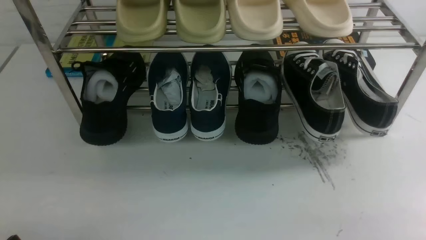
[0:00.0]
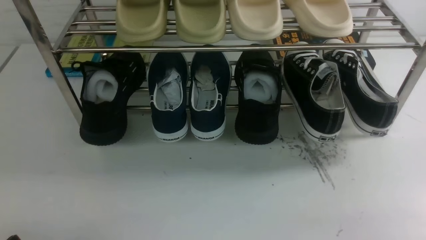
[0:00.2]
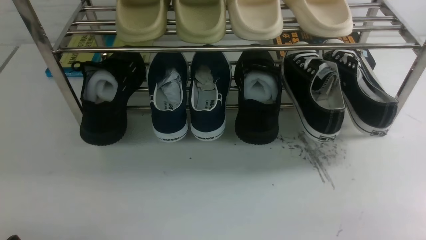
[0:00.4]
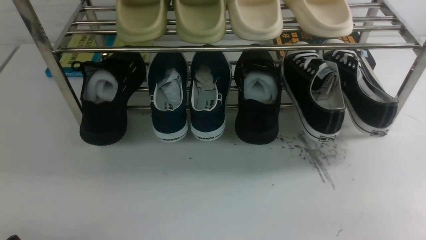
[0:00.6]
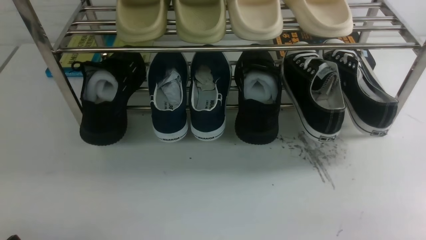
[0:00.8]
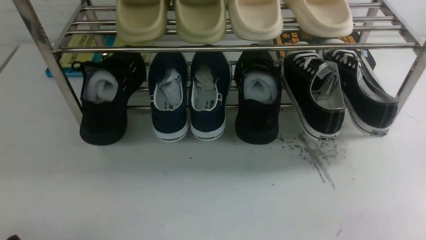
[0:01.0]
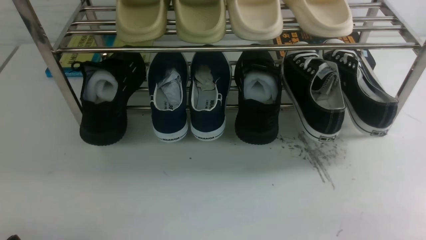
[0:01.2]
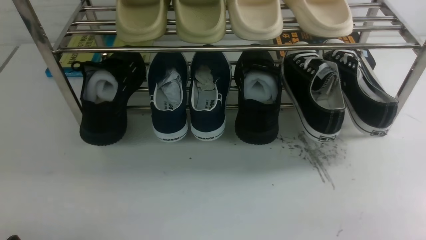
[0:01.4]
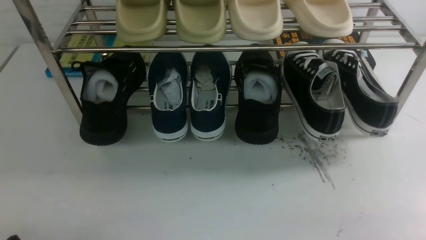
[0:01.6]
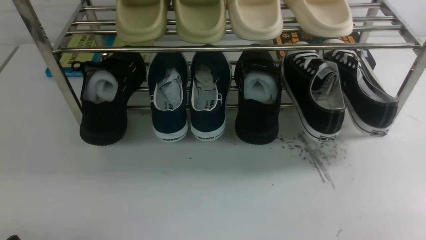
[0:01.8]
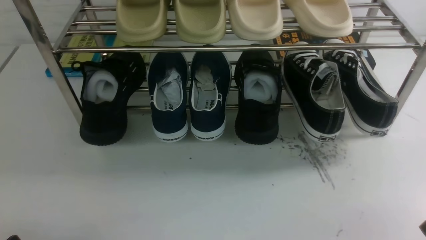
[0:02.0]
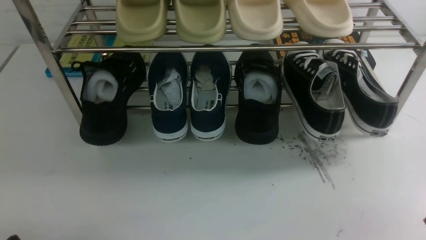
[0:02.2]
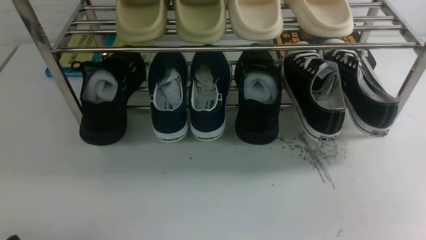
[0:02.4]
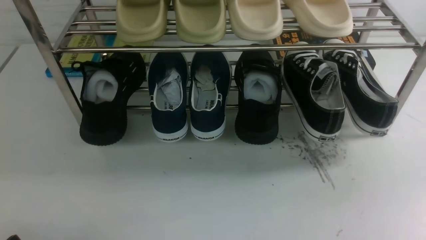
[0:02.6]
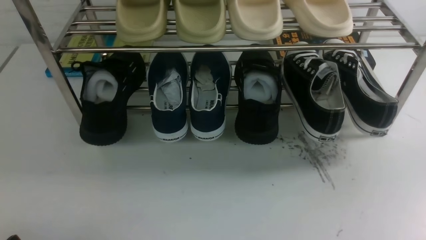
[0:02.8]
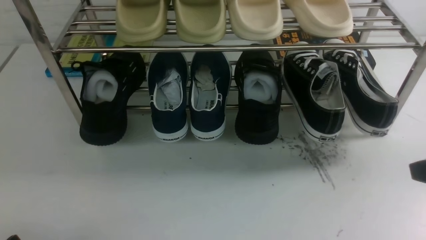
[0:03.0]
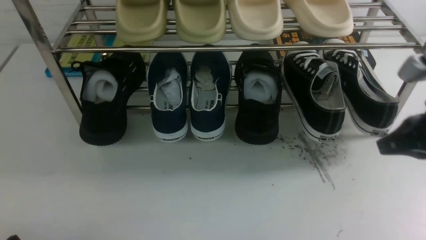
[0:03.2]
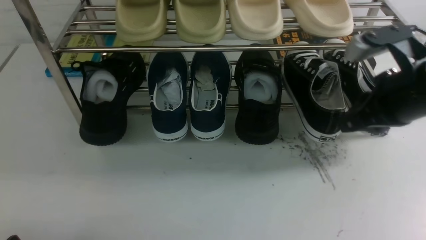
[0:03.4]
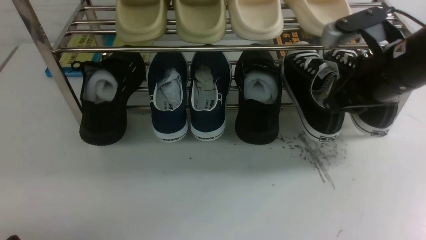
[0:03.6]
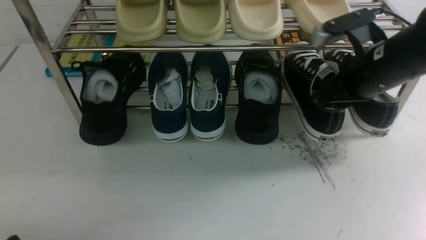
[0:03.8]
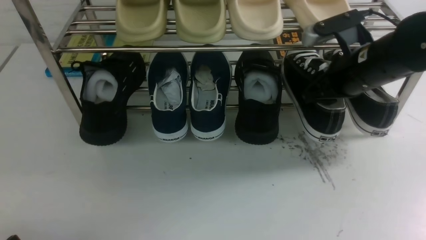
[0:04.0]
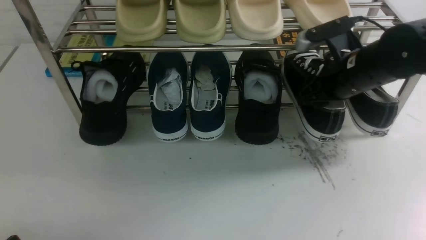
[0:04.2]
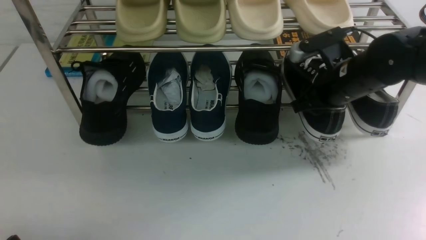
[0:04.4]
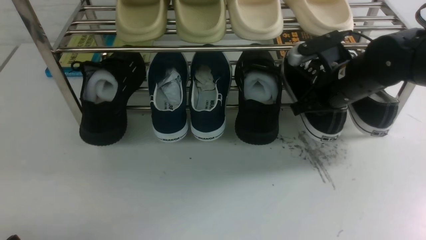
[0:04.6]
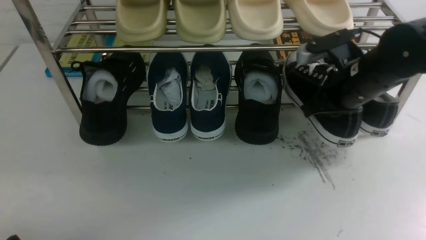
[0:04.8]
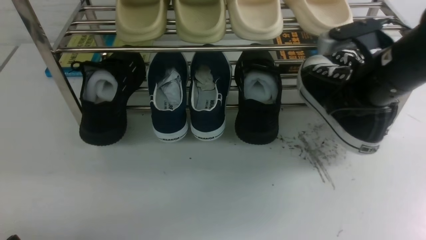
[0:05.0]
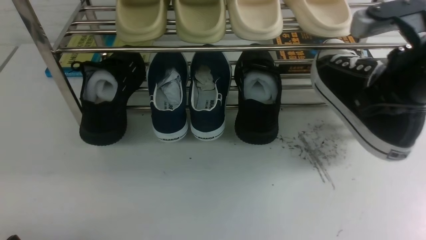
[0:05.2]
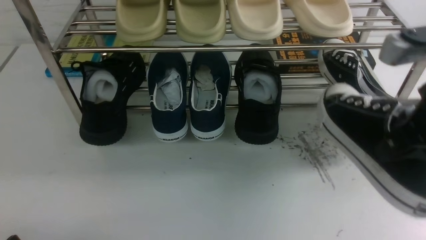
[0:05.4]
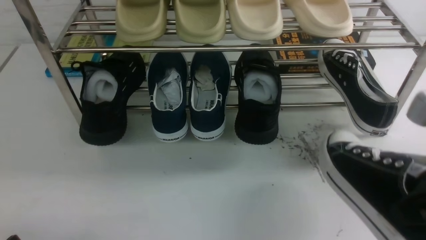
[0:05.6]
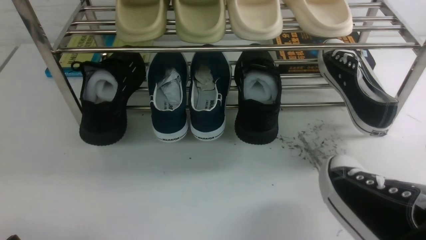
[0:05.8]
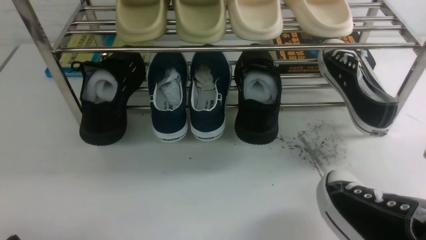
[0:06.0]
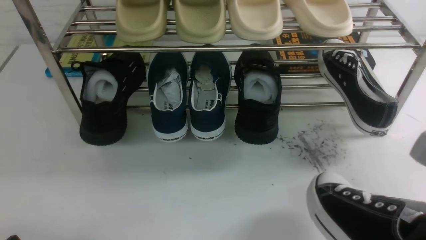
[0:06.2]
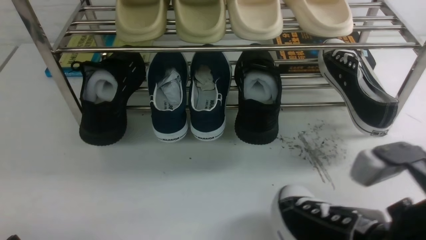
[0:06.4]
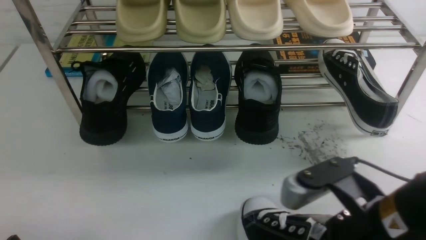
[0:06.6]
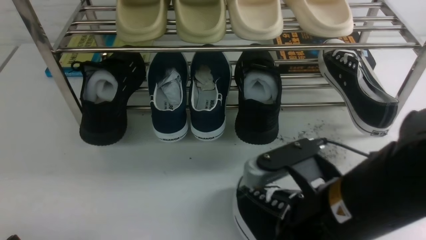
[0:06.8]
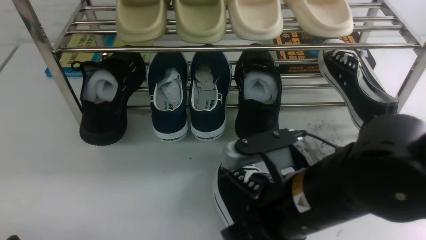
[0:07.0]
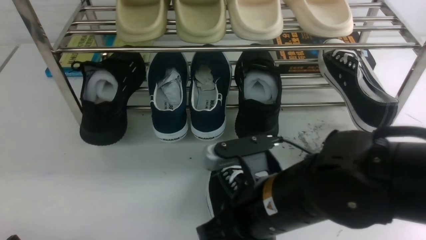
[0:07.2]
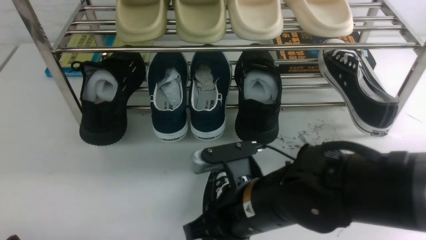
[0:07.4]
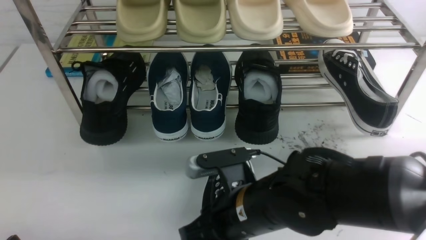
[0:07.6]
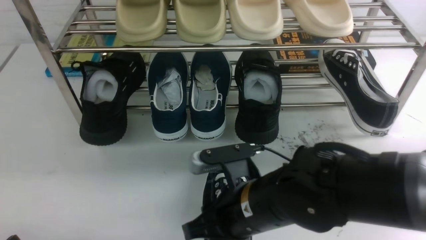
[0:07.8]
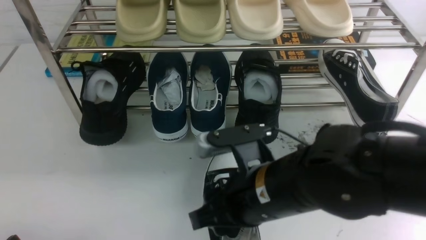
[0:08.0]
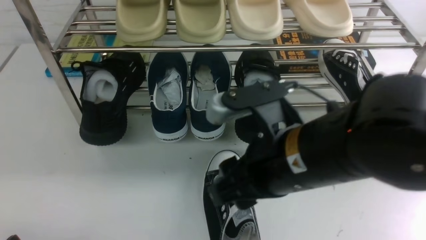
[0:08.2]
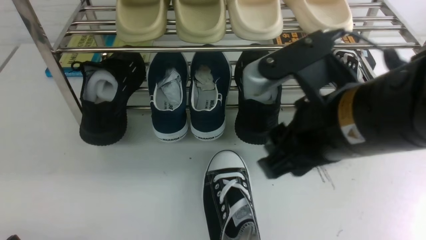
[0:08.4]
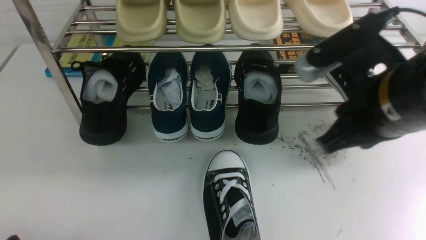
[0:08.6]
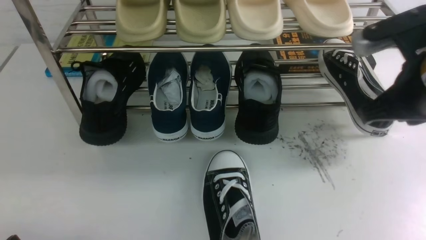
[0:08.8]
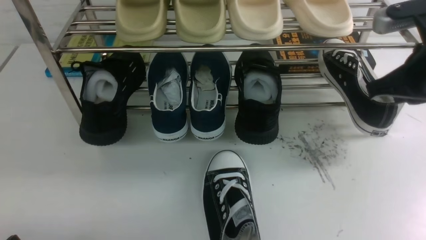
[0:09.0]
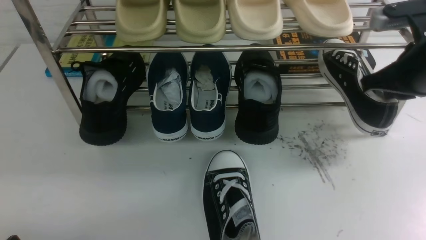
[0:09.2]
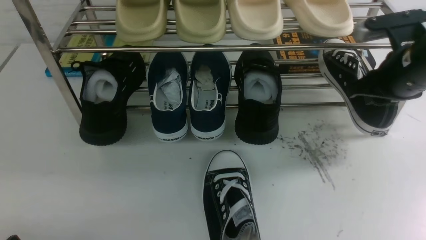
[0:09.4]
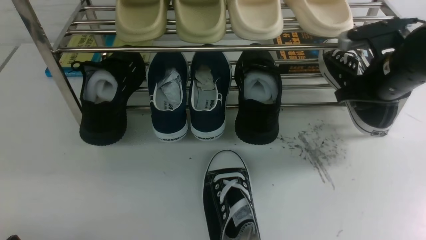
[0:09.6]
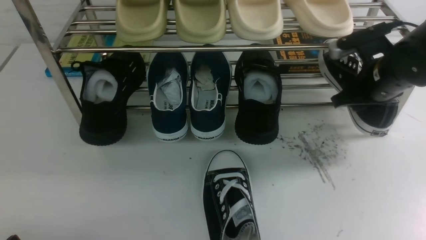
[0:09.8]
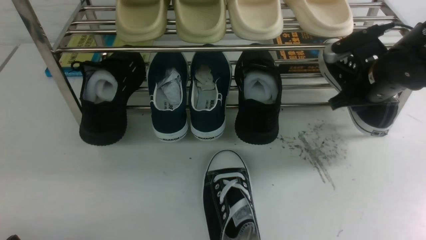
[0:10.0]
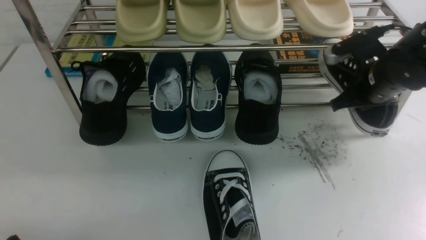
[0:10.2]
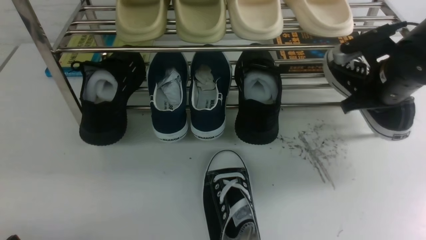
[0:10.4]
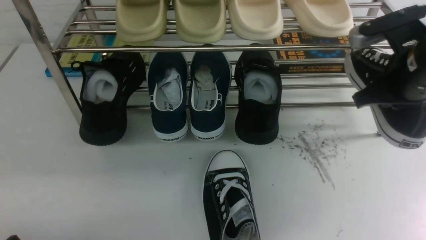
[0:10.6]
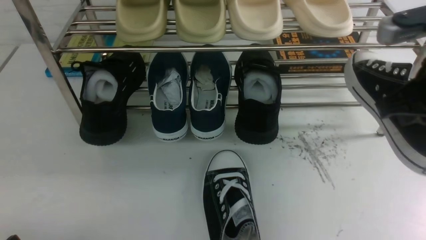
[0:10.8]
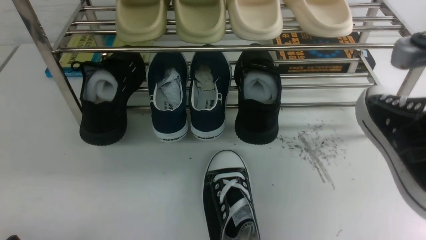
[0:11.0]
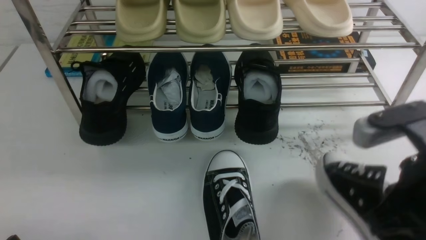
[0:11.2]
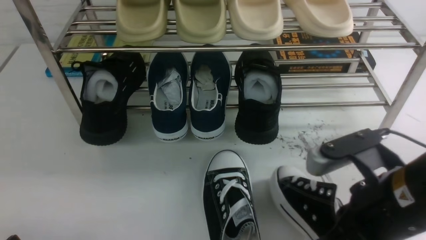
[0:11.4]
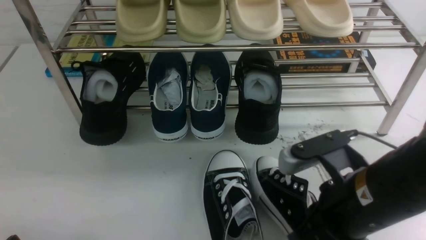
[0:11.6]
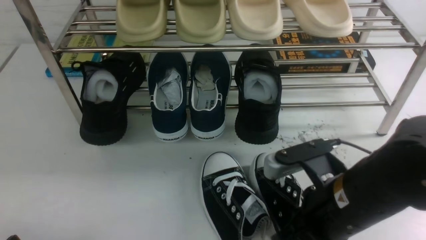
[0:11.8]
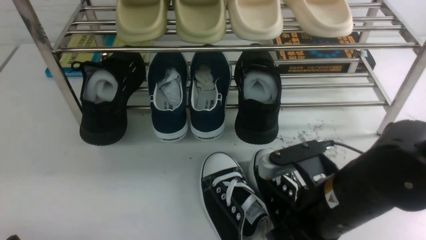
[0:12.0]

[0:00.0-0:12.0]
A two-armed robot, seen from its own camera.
Step, 0:00.0 to 0:05.0: use the right arm to clamp a shoe on the right side of the shoe rack.
Step, 0:05.2 to 0:08.2: use the right arm to take out the clamped shoe from the shoe rack and put it down.
Step, 0:08.4 to 0:10.6: use the right arm to clamp a shoe on the right side of the shoe rack.
0:03.0 to 0:04.4: The right gripper moves forward and to the left, approximately 20 cm, and opens.
0:04.4 to 0:06.0: The right gripper is displaced backward by approximately 25 cm, and closes.
0:06.0 to 0:07.6: The right gripper shifts roughly 25 cm to the left and downward, and opens up.
0:07.6 to 0:09.0: The right gripper goes roughly 25 cm to the right, upward and forward, and closes its fingers.
0:09.0 to 0:10.4: The right gripper is displaced forward and downward by approximately 10 cm, and opens, then closes again.
0:10.4 to 0:12.0: The right gripper moves backward and to the left, roughly 20 cm.

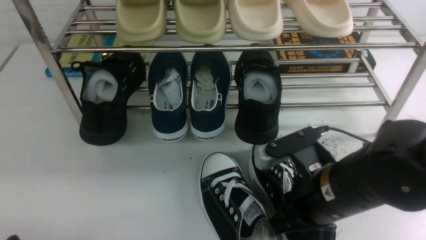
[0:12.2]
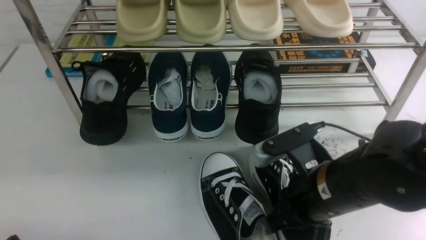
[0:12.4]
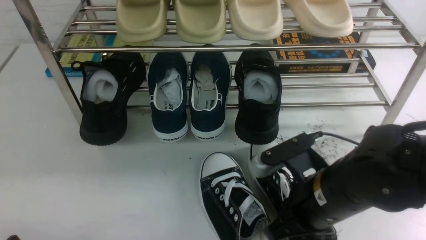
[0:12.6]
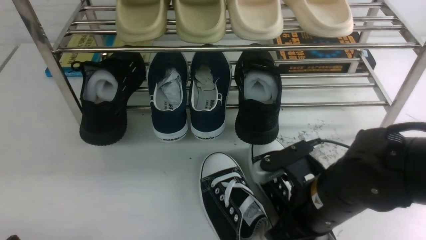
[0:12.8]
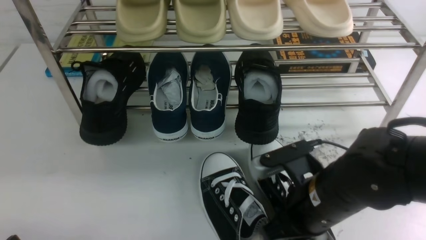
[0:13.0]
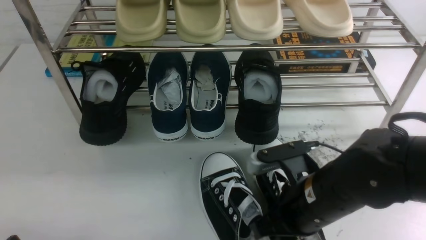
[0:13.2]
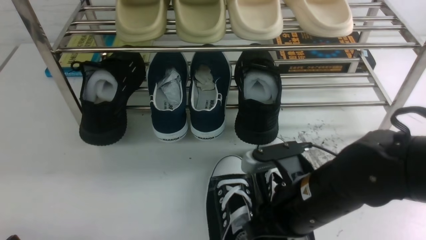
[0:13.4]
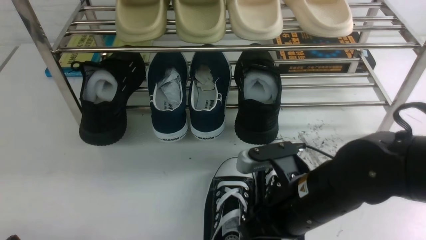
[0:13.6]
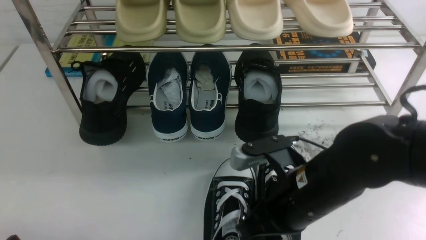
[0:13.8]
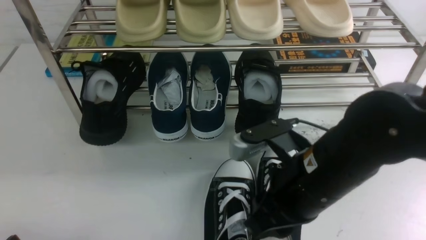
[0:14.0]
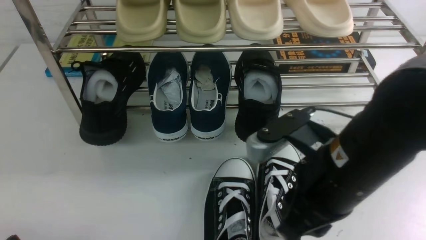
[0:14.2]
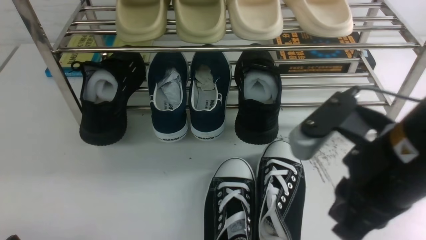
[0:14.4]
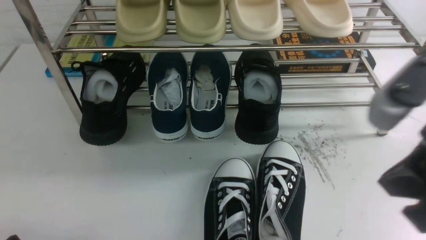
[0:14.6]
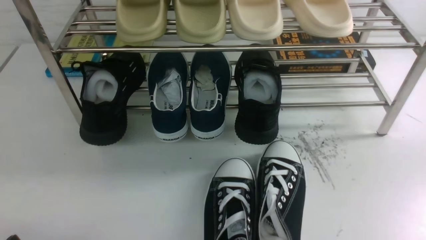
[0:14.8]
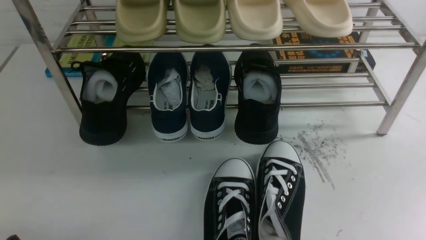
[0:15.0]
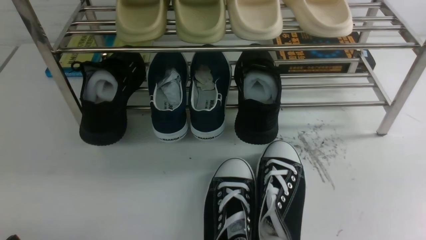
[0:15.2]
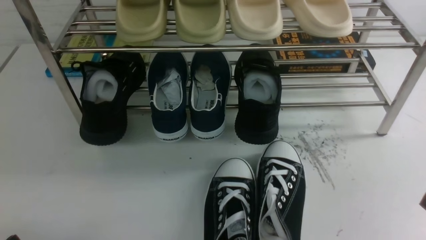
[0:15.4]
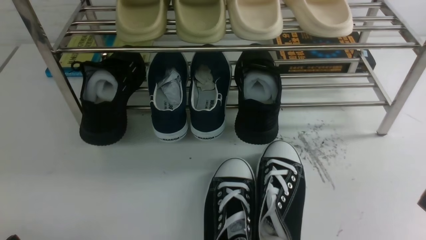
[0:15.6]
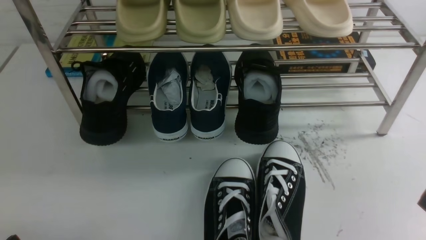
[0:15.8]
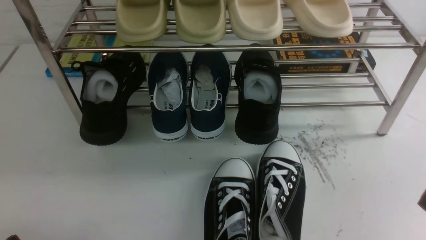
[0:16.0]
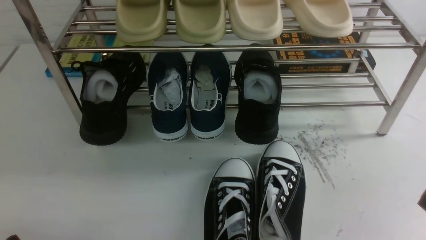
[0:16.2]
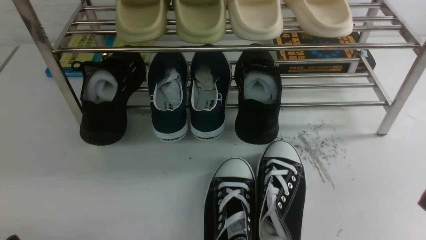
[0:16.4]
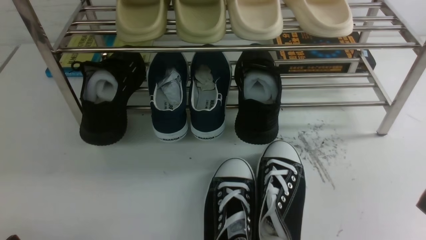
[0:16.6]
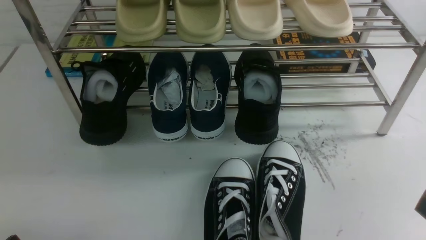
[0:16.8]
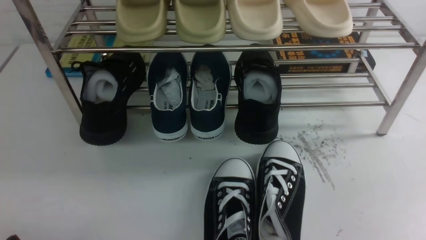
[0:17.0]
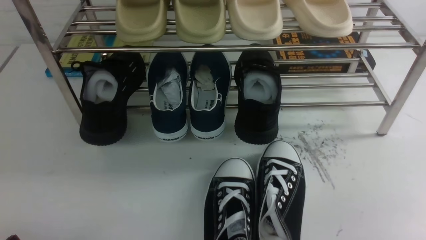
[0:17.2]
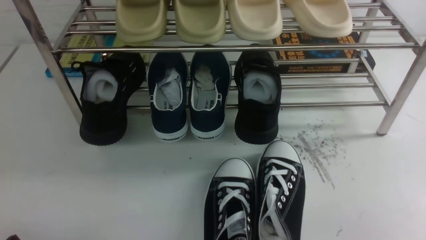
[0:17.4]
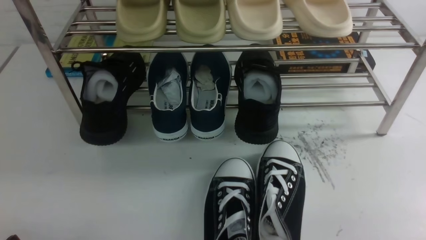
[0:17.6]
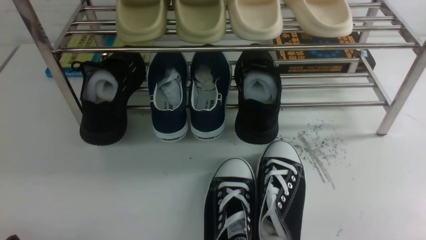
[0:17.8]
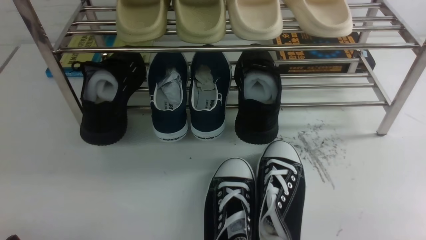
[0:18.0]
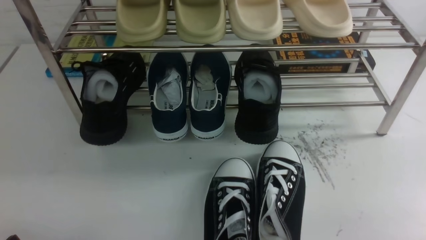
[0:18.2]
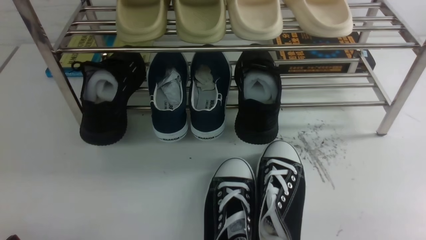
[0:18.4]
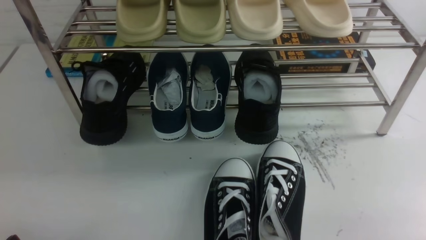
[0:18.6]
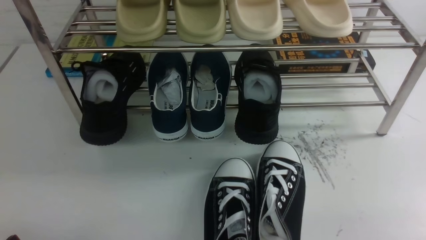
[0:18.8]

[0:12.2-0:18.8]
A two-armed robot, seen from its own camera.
Step, 0:12.2 to 0:14.4: use the right arm to take out the clamped shoe from the shoe rack and put it down.
0:12.2 to 0:13.8: The right gripper opens its fingers.
0:13.8 to 0:15.4: The right gripper shifts about 25 cm to the right and backward, and closes up.
